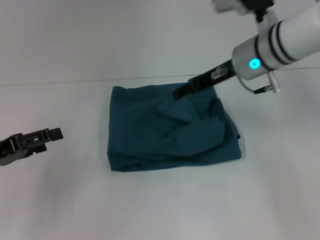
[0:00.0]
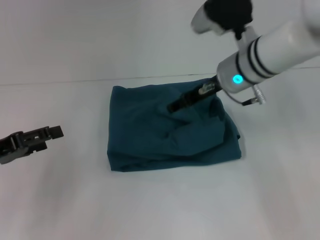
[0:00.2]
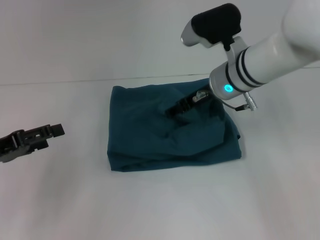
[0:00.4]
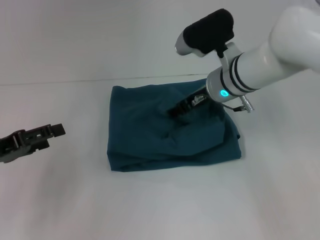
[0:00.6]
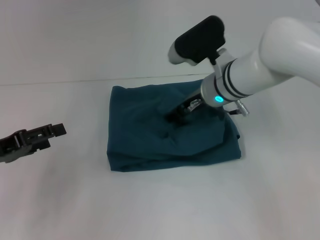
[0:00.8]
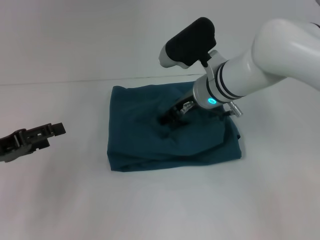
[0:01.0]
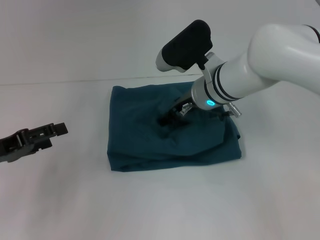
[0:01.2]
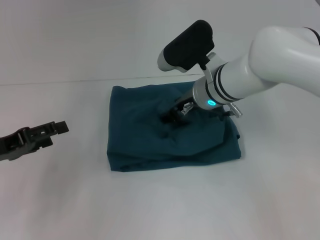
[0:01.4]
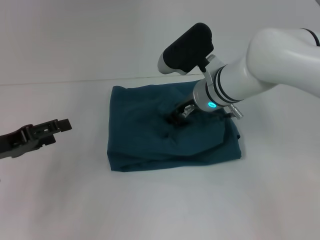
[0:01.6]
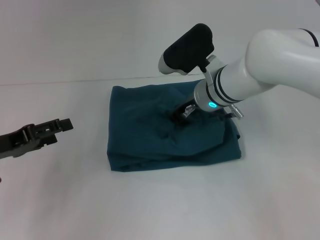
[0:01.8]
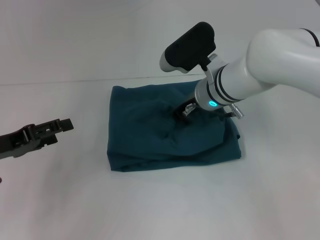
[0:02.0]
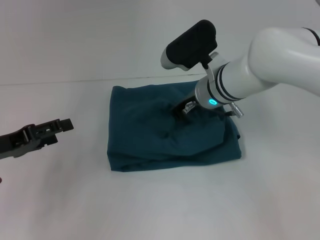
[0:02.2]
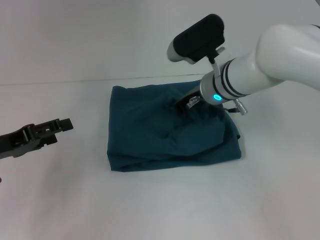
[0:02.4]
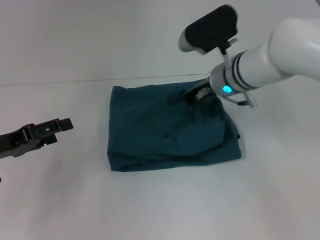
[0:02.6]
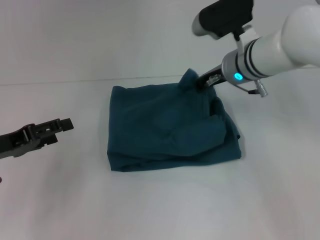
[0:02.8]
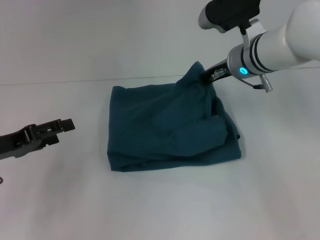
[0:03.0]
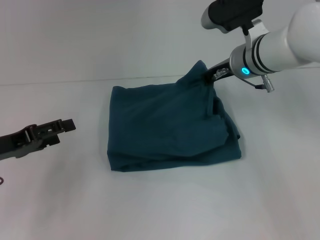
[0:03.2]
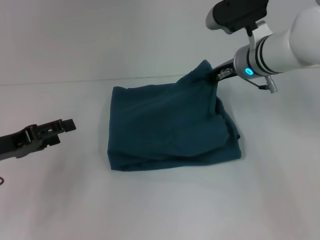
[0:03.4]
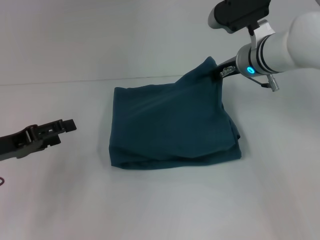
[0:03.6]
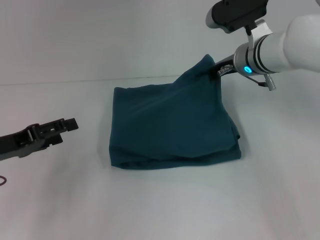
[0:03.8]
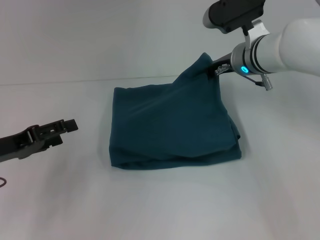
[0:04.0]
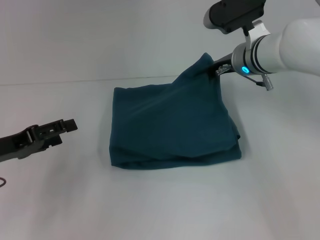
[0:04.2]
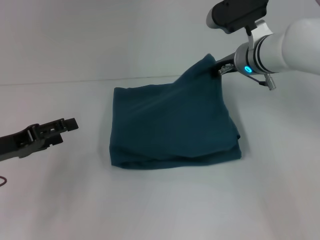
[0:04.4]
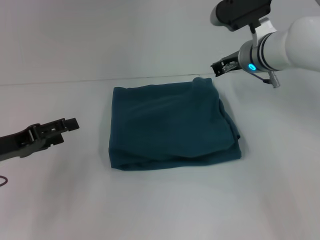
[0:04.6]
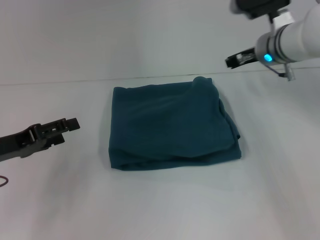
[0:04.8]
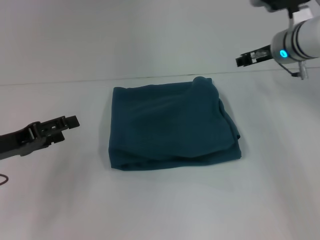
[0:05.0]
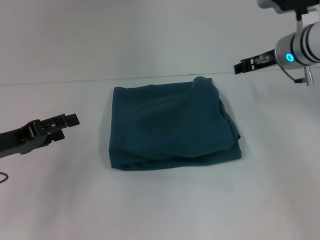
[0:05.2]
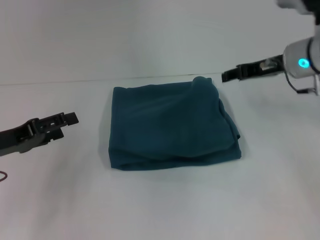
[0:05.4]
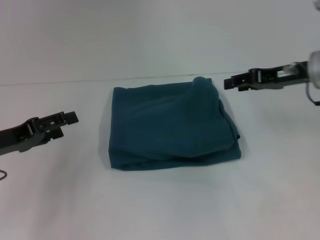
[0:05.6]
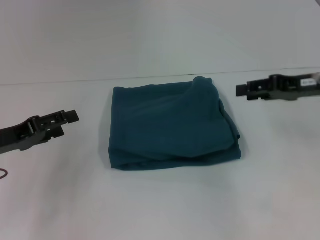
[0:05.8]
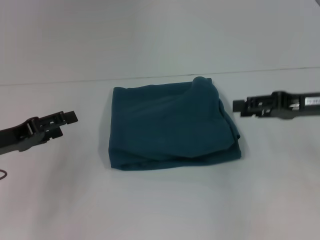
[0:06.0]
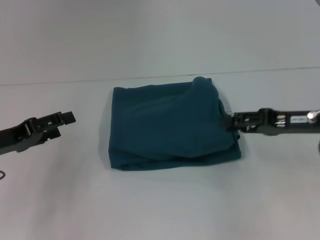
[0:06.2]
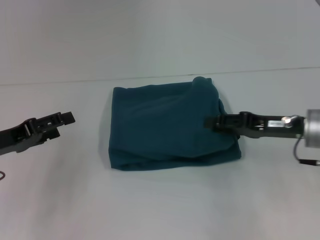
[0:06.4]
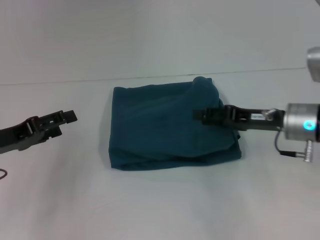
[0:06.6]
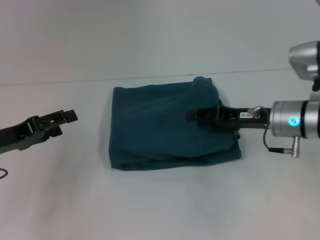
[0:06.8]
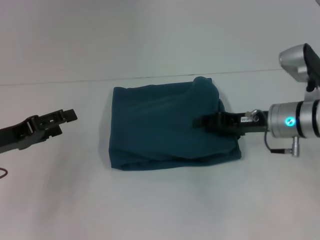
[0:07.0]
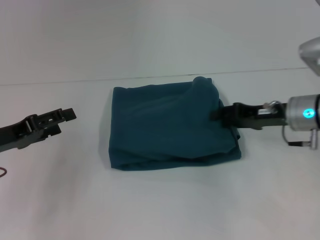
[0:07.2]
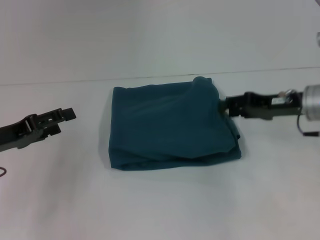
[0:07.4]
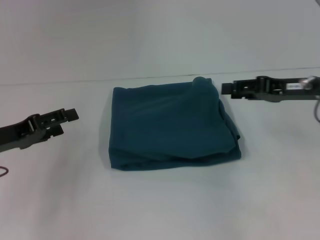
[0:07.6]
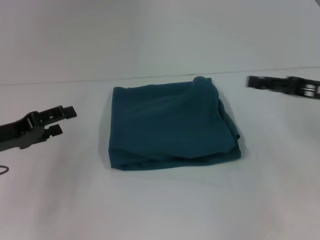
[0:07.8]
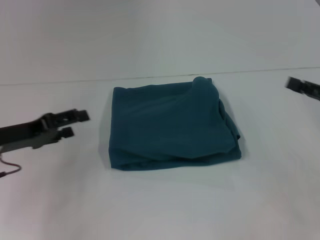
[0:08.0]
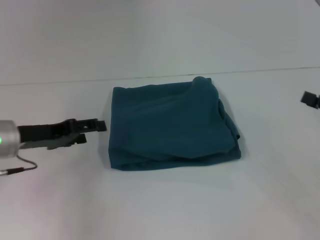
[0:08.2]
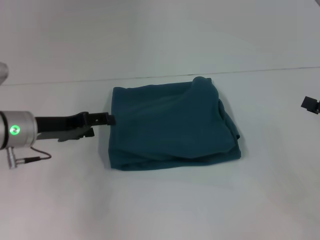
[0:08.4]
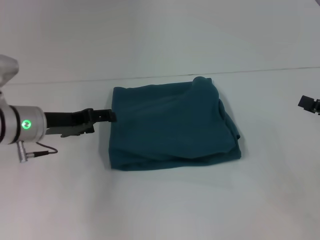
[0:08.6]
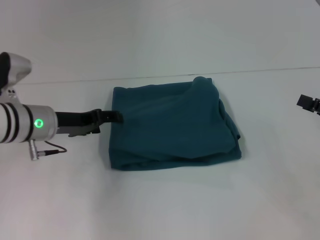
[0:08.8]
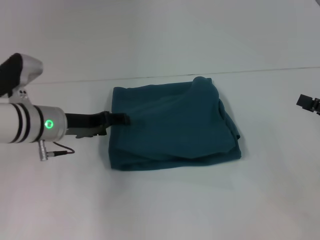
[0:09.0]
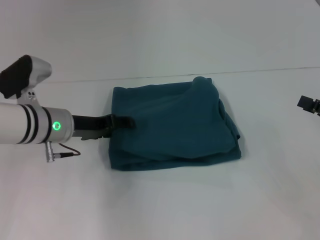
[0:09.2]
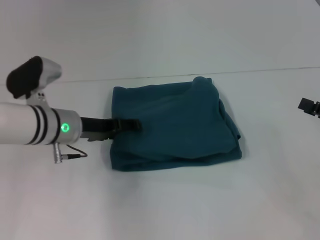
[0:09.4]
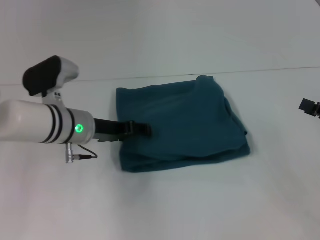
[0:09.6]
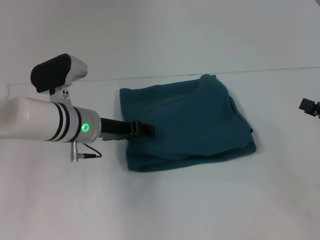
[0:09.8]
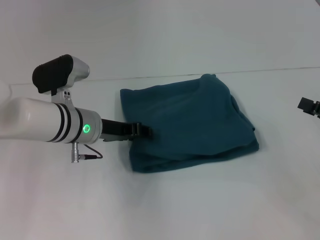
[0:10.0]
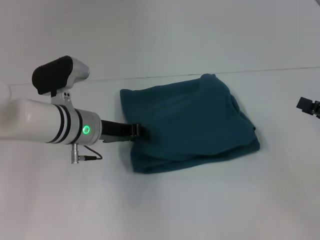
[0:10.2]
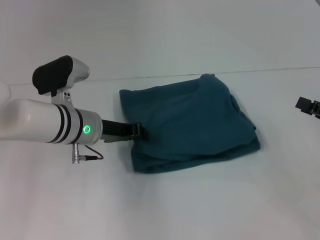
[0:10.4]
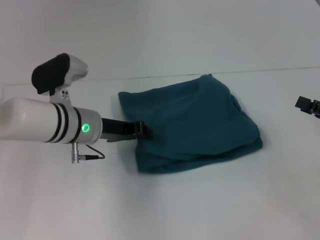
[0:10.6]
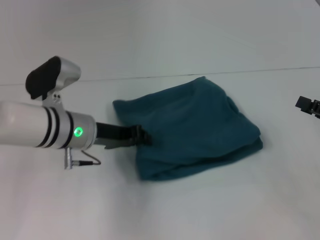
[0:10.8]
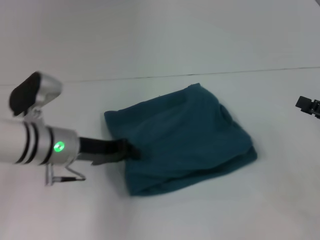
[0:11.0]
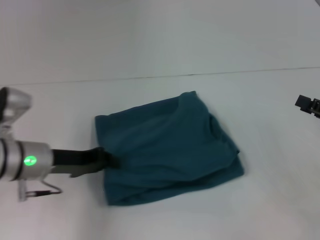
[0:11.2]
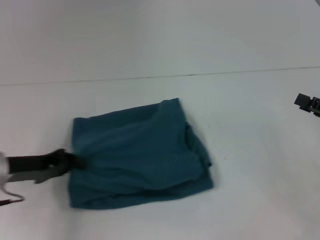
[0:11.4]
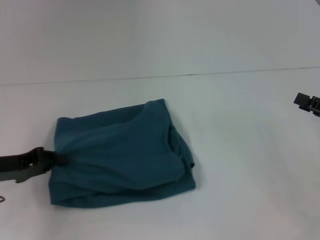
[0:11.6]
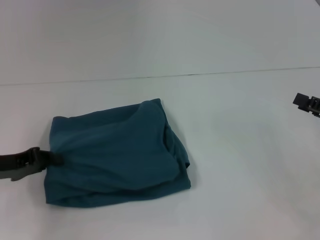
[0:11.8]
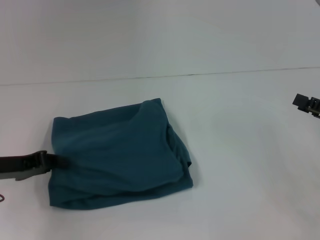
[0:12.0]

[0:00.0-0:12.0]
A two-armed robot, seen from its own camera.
0:00.0 to 0:01.6: The right gripper heads to the left and downward, covering about 10 cm.
0:01.6 to 0:03.0: The right gripper heads to the right, covering approximately 5 cm, and closes.
0:03.0 to 0:04.4: There are only small adjustments of the grippers.
0:04.4 to 0:06.0: The right gripper goes approximately 20 cm to the right and backward, and opens up.
0:06.0 to 0:07.6: The right gripper goes to the left and returns, approximately 10 cm each way.
0:07.6 to 0:09.0: The right gripper moves backward and to the right, about 15 cm; the left gripper moves to the right and forward, approximately 15 cm.
0:09.0 to 0:10.4: The left gripper moves to the right, some 5 cm, and closes.
0:10.4 to 0:12.0: The left gripper is displaced to the left and backward by approximately 20 cm.

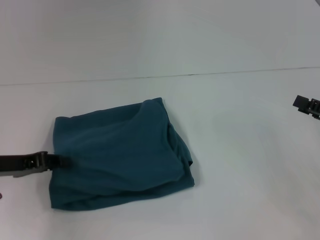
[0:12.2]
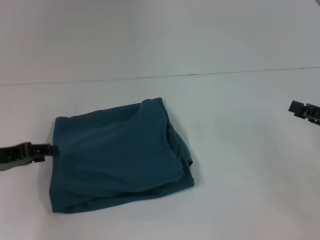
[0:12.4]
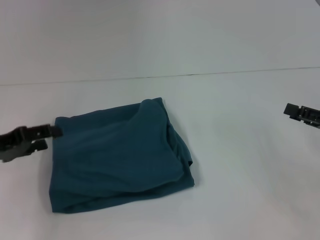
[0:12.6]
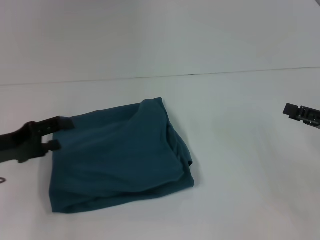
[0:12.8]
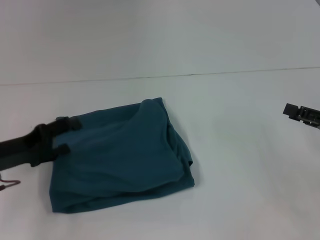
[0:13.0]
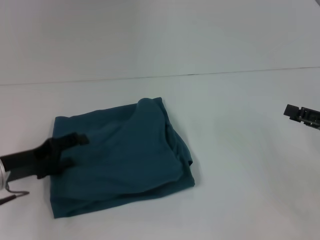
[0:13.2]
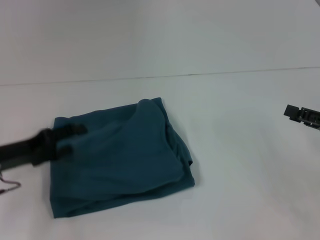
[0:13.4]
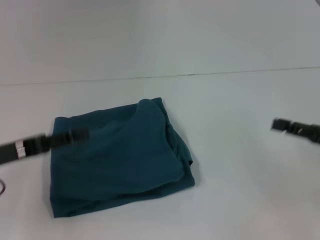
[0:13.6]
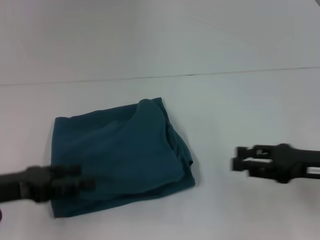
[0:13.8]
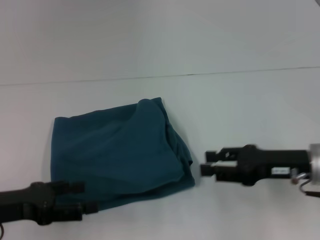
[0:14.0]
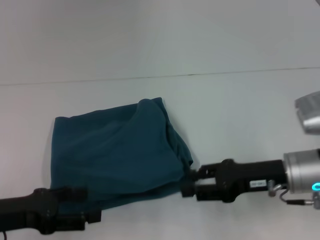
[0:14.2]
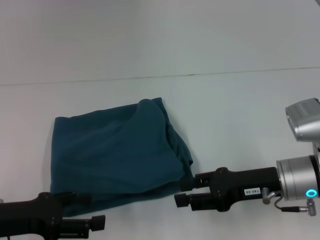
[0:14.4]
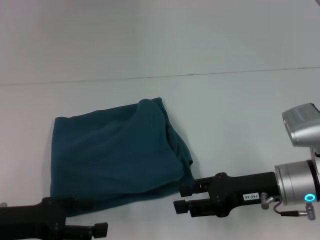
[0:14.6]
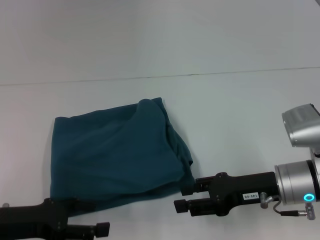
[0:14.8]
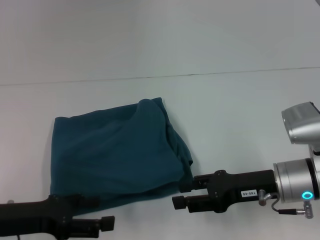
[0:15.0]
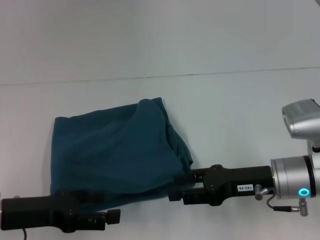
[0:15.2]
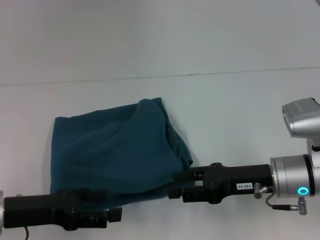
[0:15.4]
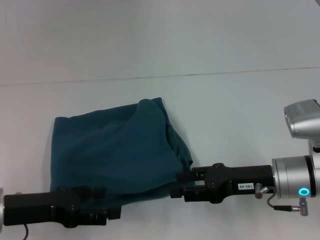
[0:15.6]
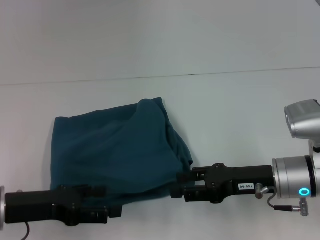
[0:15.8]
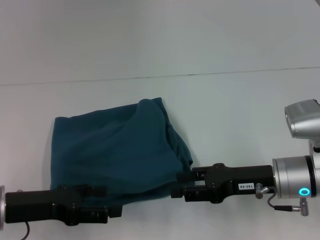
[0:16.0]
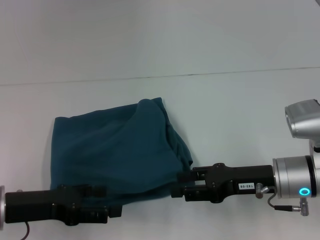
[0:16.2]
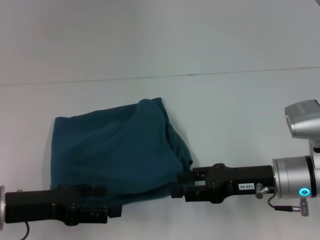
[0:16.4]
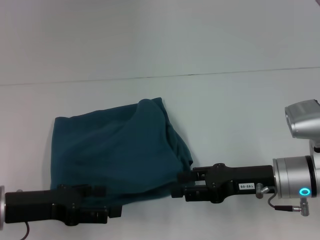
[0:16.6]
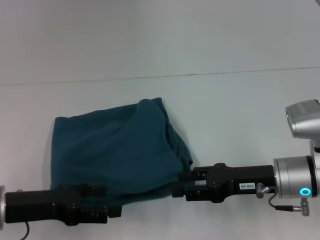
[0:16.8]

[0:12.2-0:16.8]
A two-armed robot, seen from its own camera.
0:12.2 to 0:13.8: The right gripper travels to the left by some 5 cm. Meanwhile the left gripper is displaced backward by about 5 cm, and opens up.
0:13.8 to 0:15.2: The right gripper moves to the left, about 10 cm.
0:15.2 to 0:16.8: The two grippers keep their place.

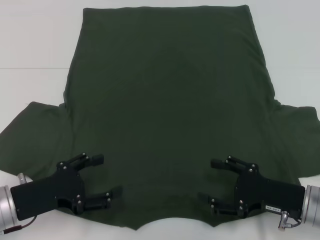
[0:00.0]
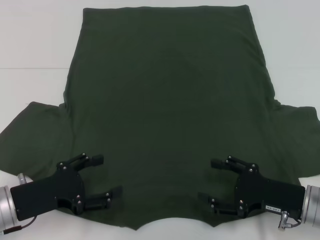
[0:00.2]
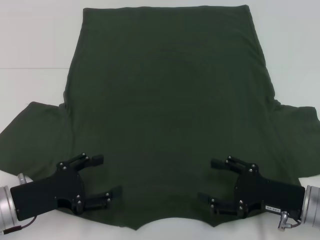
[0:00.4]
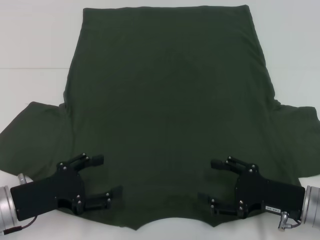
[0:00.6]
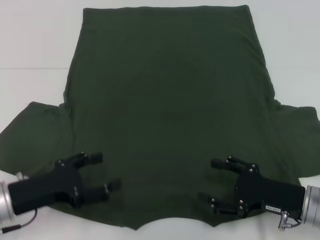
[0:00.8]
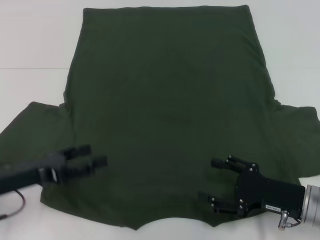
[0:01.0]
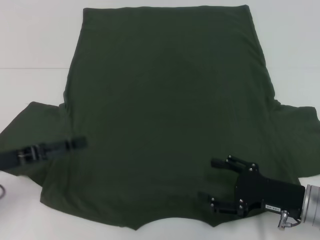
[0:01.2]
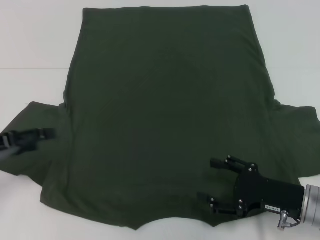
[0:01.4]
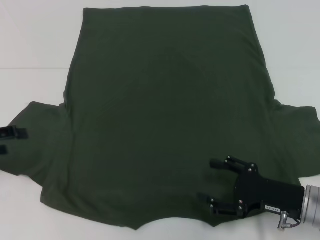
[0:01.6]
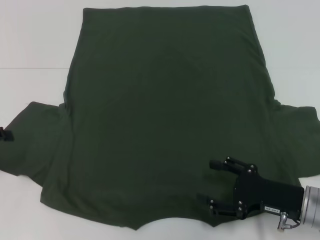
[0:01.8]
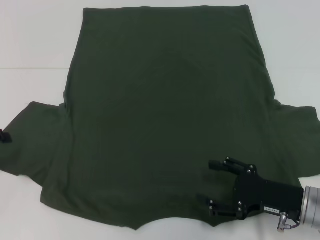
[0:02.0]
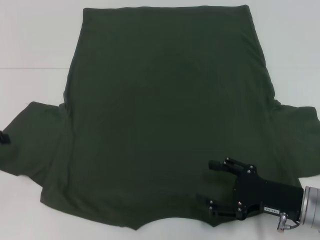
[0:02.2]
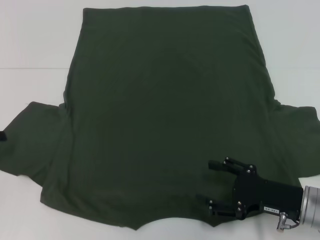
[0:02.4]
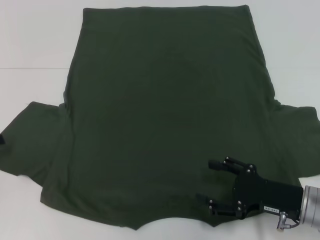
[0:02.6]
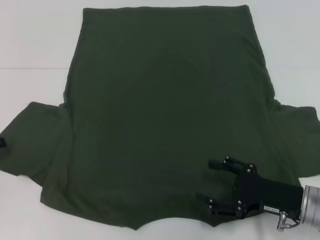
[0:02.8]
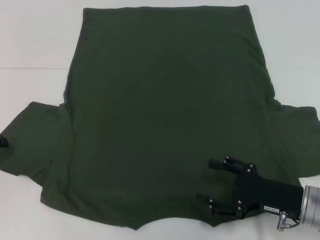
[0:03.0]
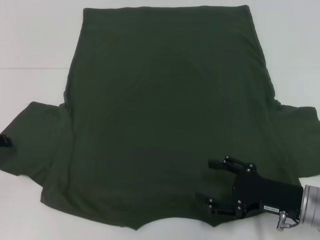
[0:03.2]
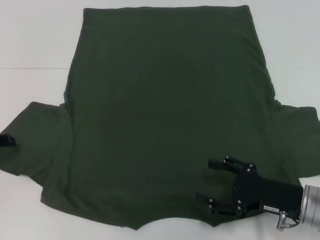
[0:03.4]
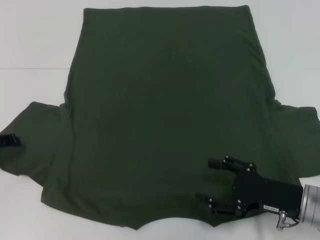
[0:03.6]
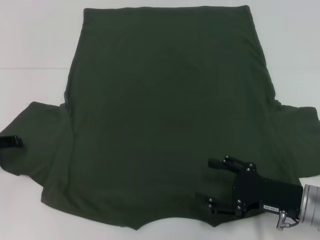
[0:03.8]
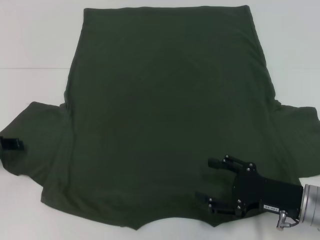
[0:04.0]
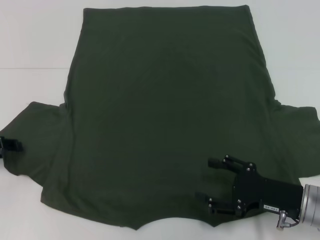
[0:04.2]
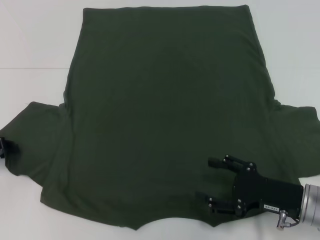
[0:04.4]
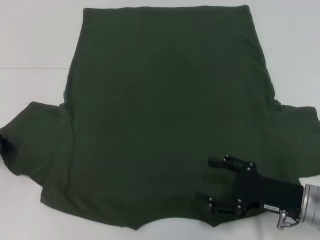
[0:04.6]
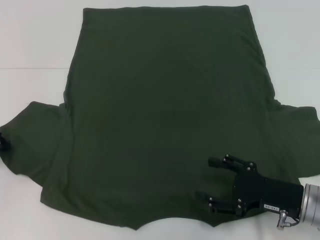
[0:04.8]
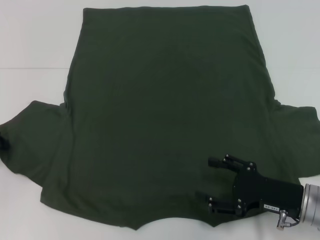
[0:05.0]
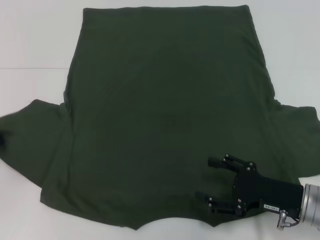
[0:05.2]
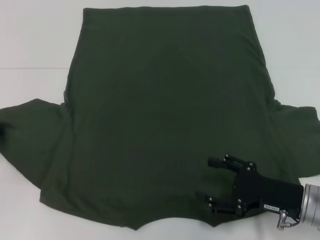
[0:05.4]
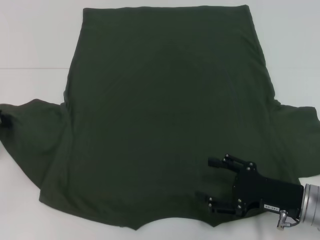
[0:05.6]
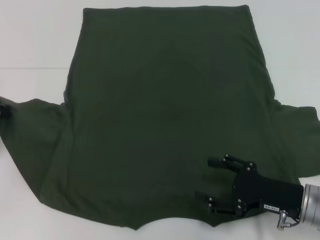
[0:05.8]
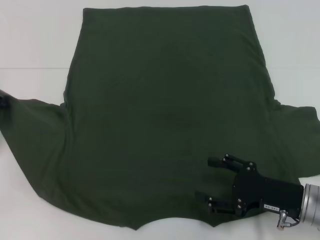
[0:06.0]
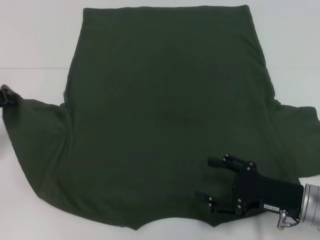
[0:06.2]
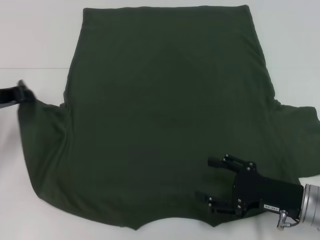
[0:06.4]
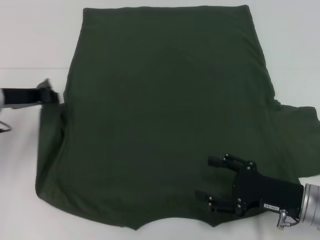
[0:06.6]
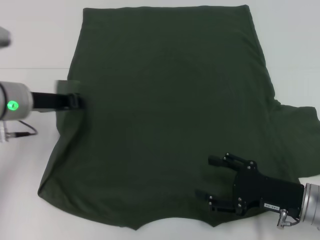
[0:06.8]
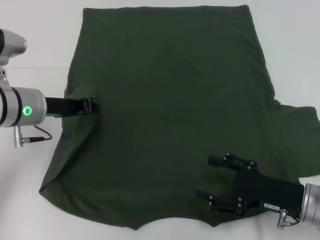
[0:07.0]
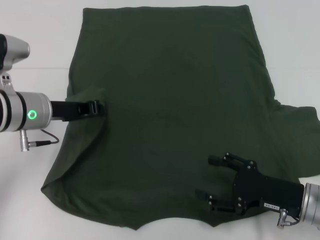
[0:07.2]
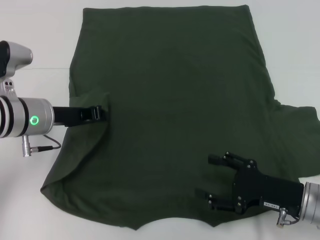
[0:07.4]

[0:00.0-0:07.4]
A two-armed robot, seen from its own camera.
0:00.0 to 0:01.4: The left gripper goes roughly 10 cm to the left and upward.
0:01.4 to 0:03.0: The left gripper moves roughly 5 cm.
0:04.4 to 0:06.0: The left gripper moves upward, approximately 5 cm, and closes its fingers.
0:06.0 to 0:07.4: The left gripper shifts about 15 cm to the right.
